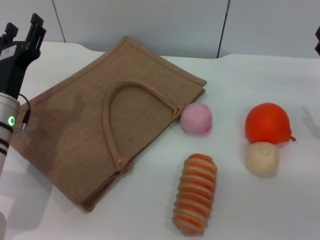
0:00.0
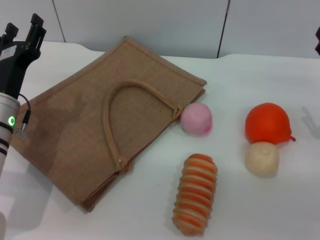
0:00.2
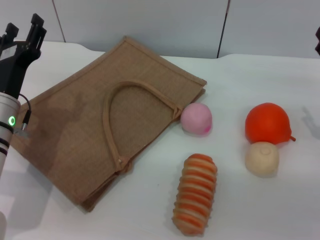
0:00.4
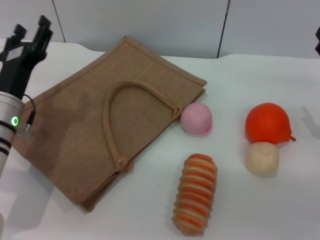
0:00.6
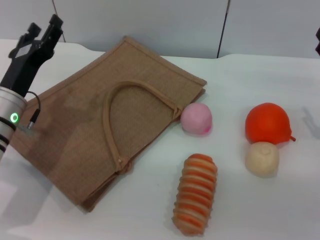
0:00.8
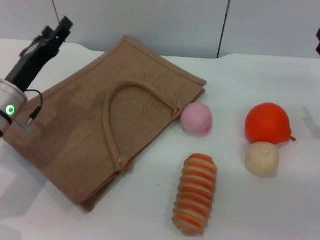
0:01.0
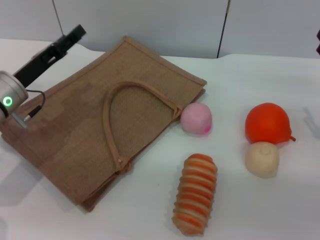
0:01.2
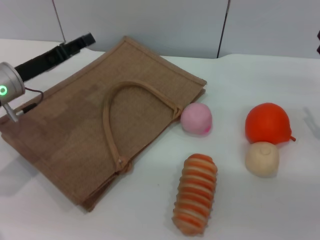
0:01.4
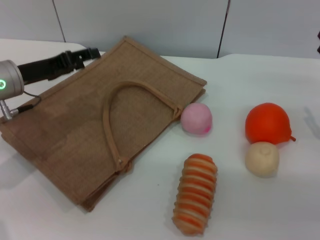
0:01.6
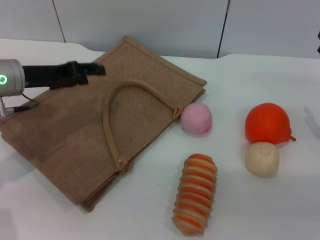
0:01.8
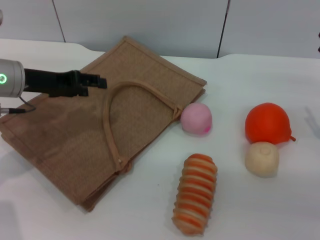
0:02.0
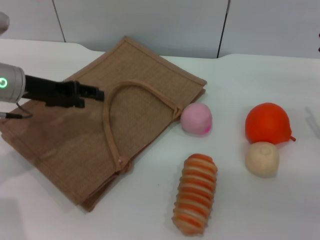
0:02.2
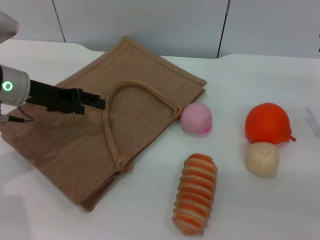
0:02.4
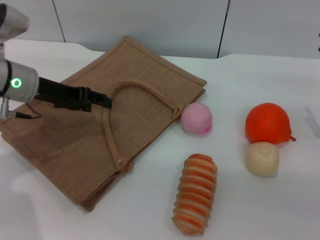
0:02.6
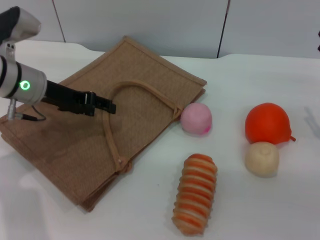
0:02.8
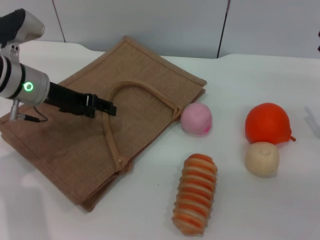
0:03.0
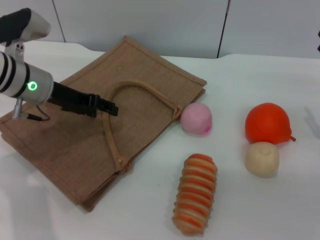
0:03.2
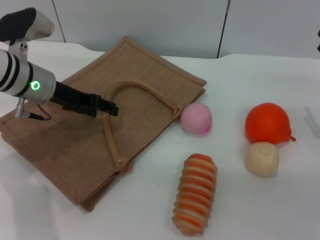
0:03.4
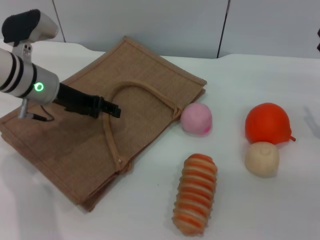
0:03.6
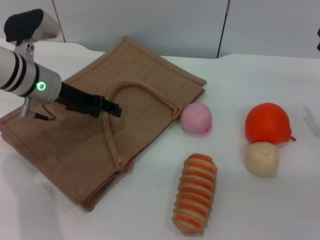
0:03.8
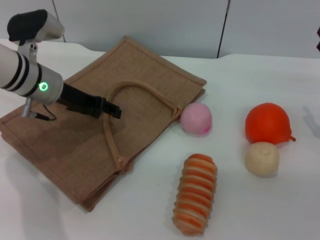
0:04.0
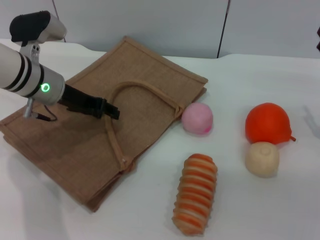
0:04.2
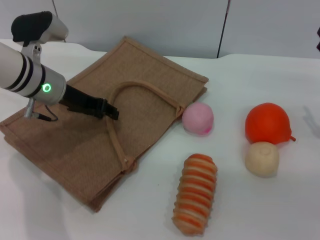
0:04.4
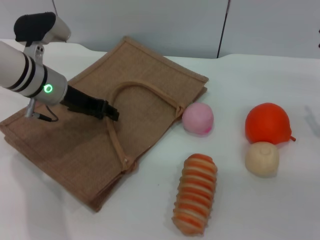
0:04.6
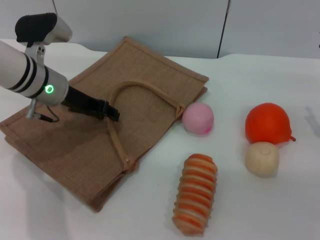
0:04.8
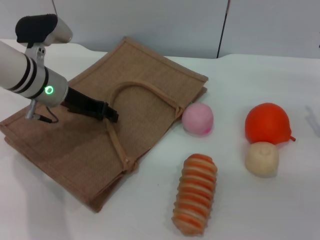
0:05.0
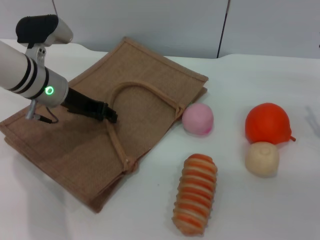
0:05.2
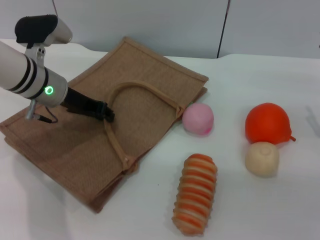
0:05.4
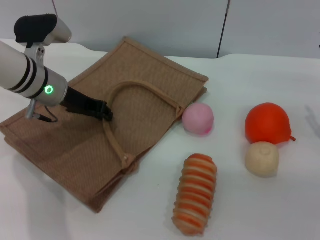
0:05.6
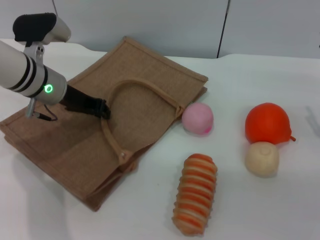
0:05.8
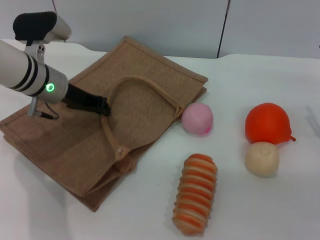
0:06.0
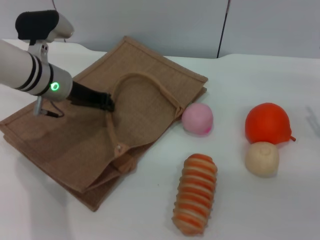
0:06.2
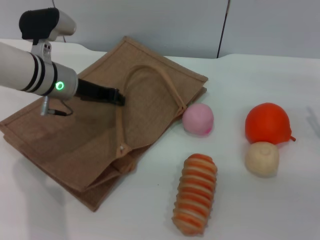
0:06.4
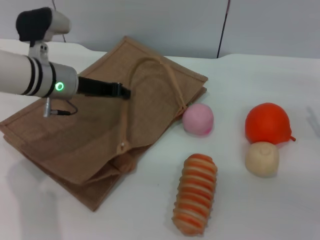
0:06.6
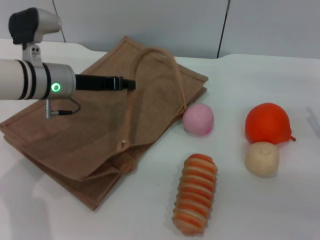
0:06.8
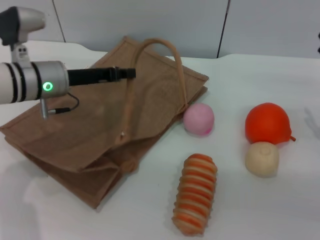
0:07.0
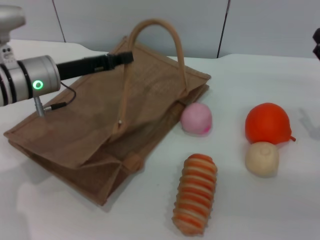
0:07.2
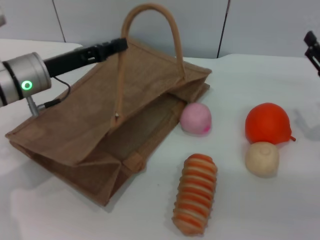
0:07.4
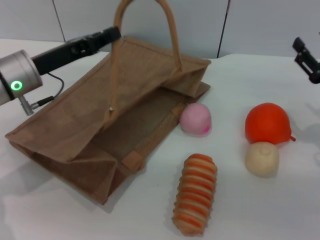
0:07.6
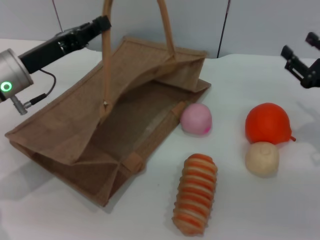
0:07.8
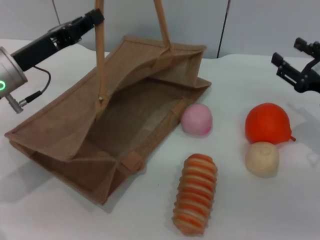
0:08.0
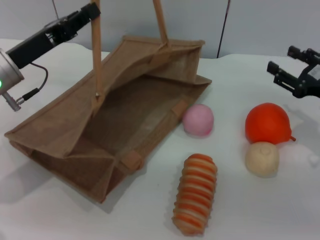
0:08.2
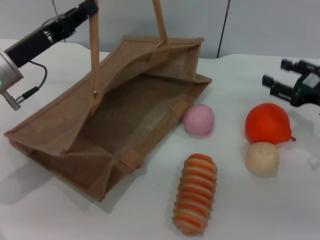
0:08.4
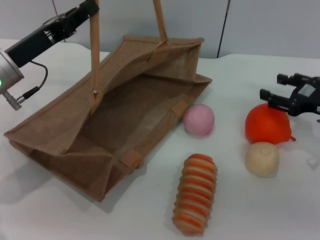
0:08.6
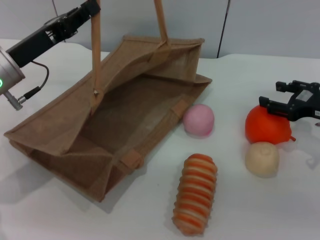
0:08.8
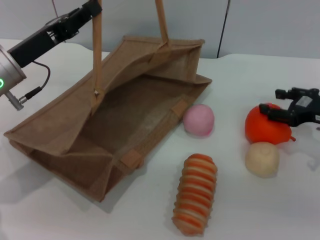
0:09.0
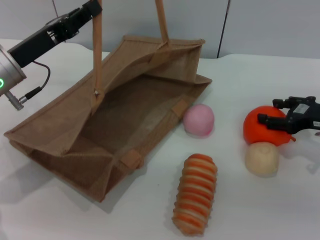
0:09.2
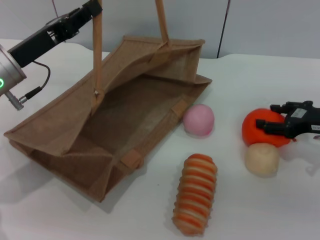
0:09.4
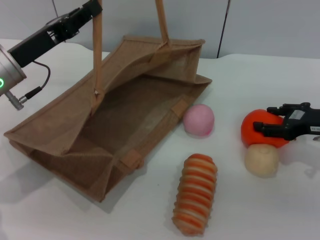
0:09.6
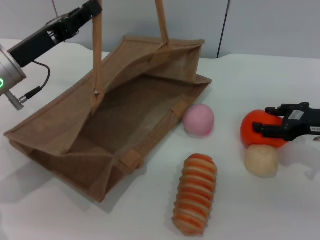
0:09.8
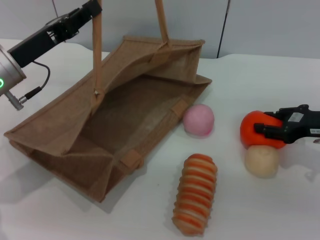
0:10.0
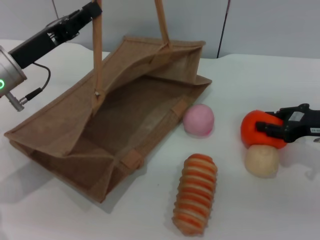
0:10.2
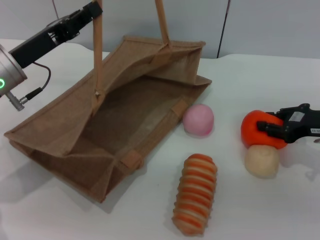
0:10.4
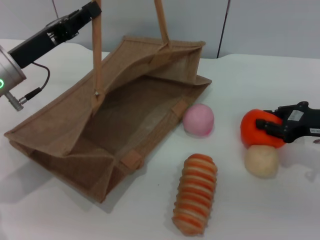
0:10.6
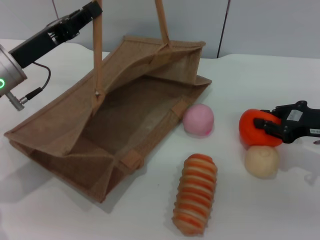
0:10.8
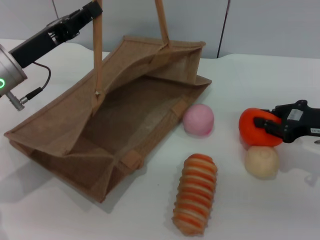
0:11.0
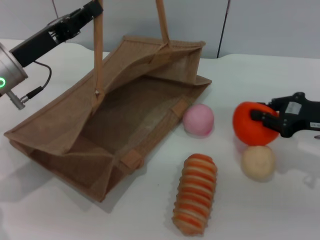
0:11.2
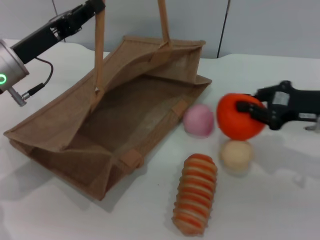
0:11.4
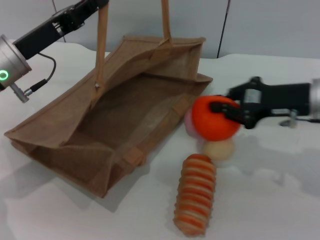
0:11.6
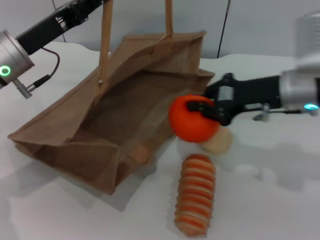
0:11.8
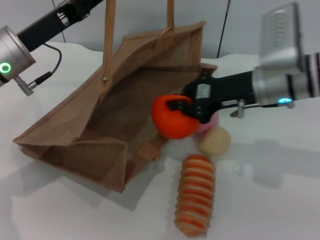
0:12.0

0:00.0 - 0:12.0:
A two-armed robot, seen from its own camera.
Task of the whole recording: pick up the orange and peach from the table and place it in the brown handbag.
Step, 0:00.0 - 0:07.2: Lift the woven bag with the left gripper to open it.
Step, 0:07.4 - 0:11.2: Pick up the orange with the right gripper.
0:00.0 - 0:01.6: The left gripper goes approximately 5 cm forward.
0:03.0 - 0:04.4: The grippers make only small movements.
0:04.4 - 0:06.0: The left gripper closes up.
0:06.0 - 0:07.6: The left gripper is displaced backward by about 5 cm.
0:09.0 - 0:10.4: The right gripper closes its fingers.
0:10.4 - 0:12.0: The right gripper travels to the left by approximately 15 cm, and closes up.

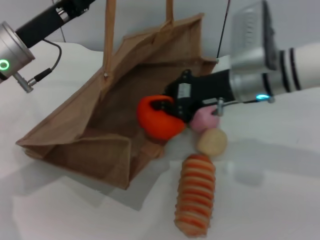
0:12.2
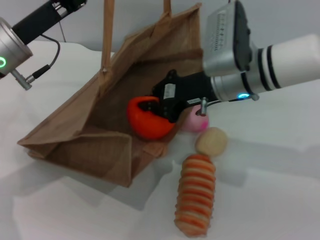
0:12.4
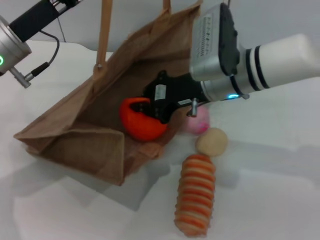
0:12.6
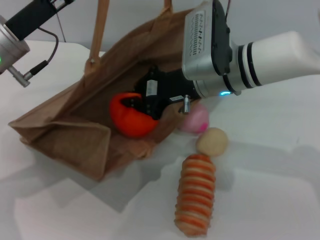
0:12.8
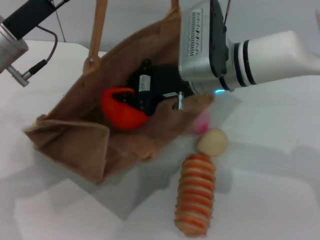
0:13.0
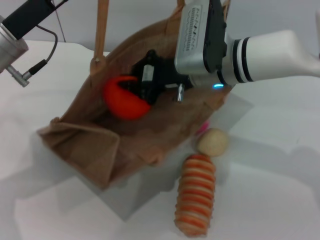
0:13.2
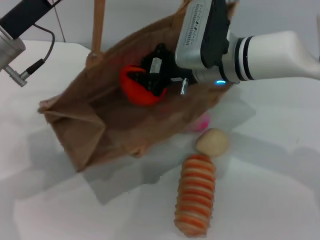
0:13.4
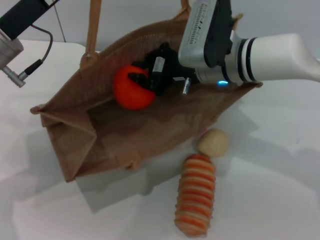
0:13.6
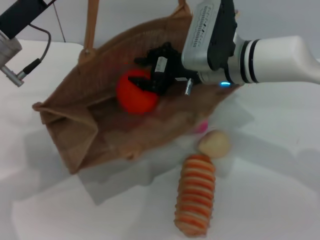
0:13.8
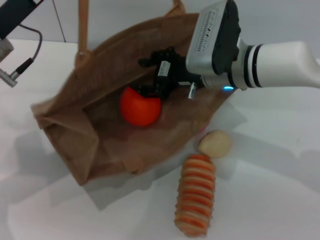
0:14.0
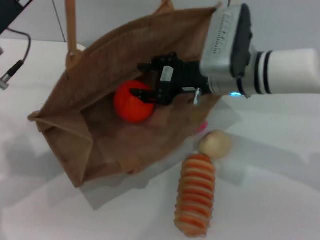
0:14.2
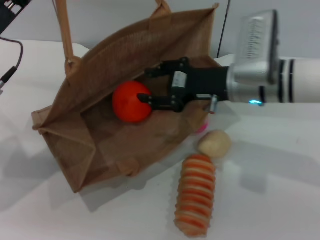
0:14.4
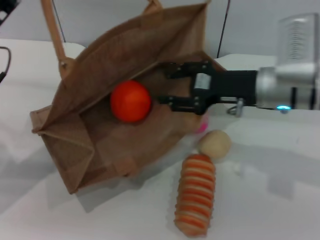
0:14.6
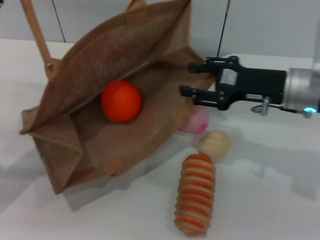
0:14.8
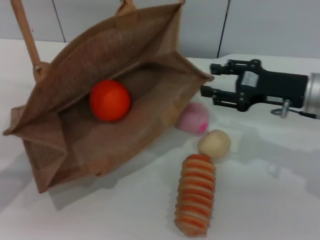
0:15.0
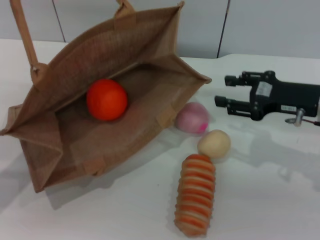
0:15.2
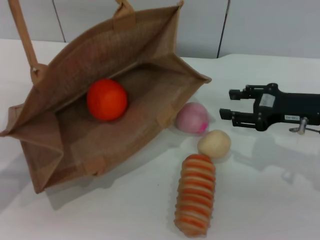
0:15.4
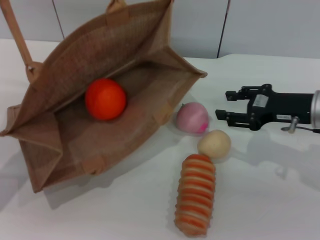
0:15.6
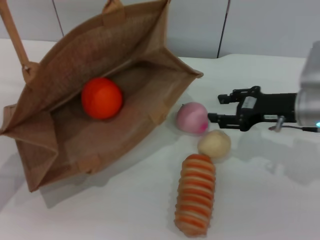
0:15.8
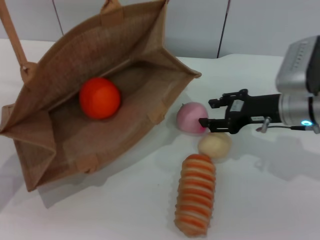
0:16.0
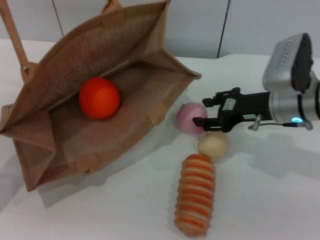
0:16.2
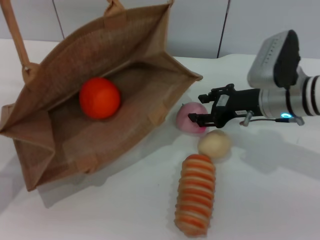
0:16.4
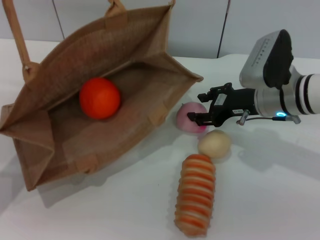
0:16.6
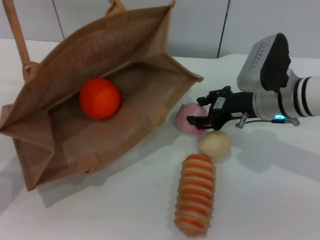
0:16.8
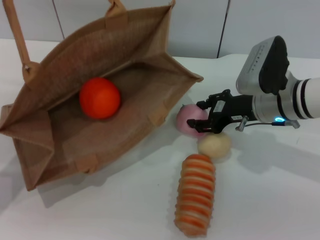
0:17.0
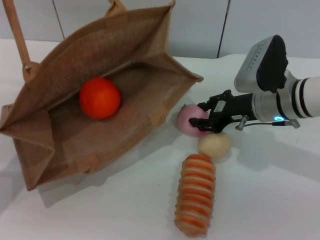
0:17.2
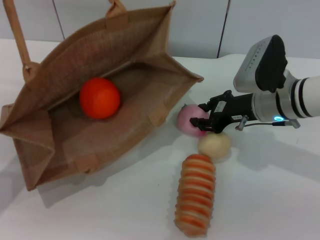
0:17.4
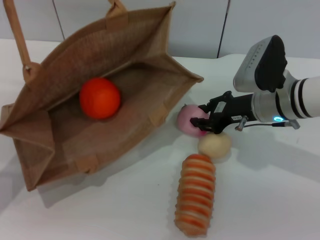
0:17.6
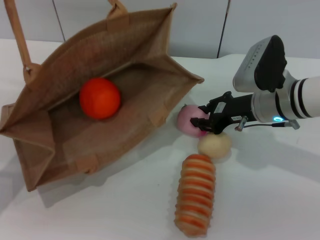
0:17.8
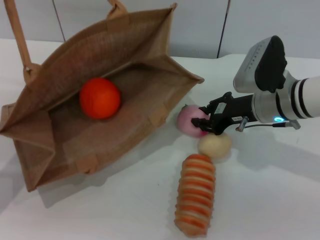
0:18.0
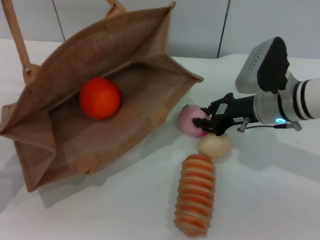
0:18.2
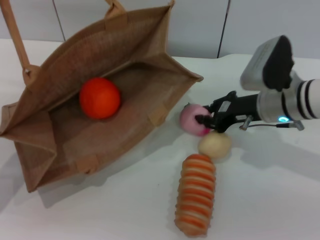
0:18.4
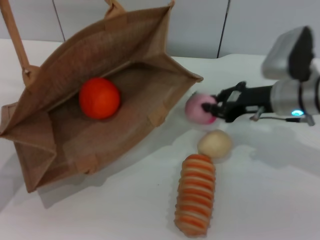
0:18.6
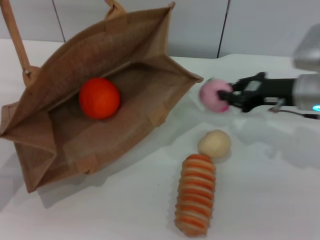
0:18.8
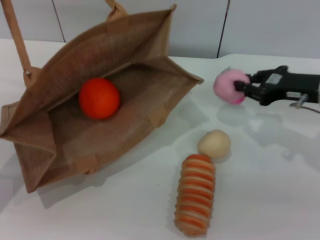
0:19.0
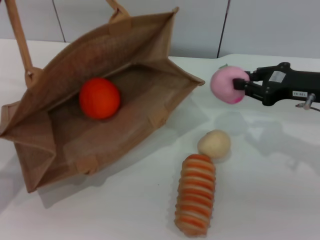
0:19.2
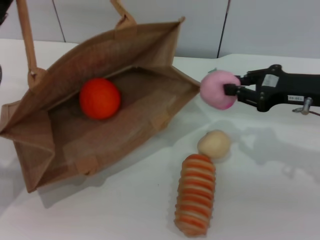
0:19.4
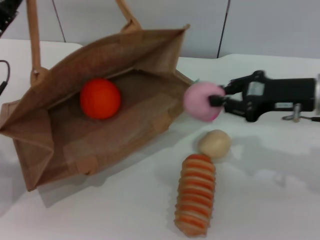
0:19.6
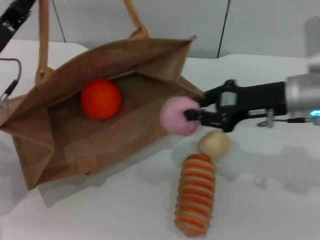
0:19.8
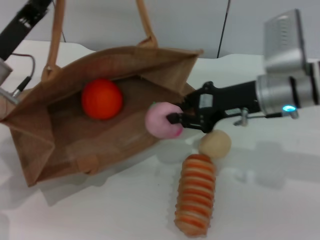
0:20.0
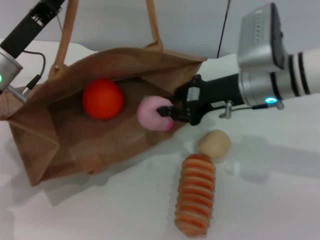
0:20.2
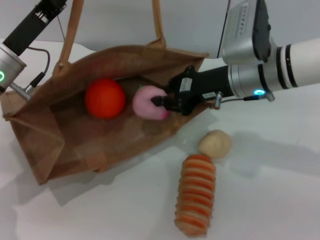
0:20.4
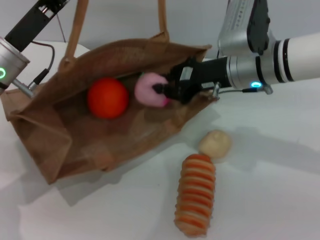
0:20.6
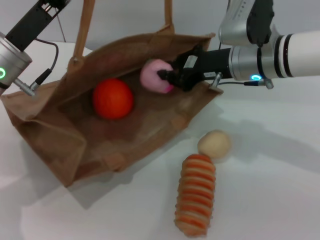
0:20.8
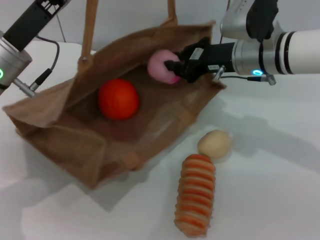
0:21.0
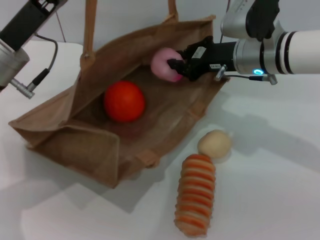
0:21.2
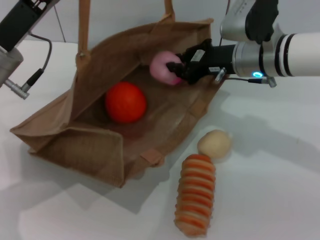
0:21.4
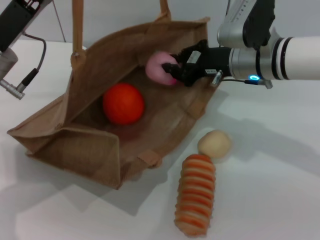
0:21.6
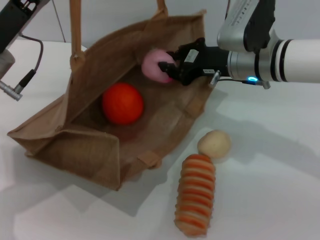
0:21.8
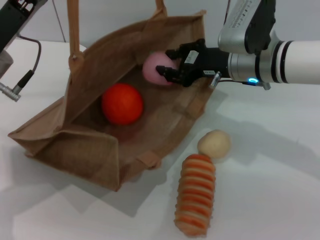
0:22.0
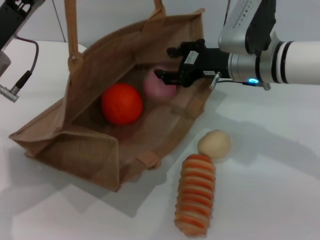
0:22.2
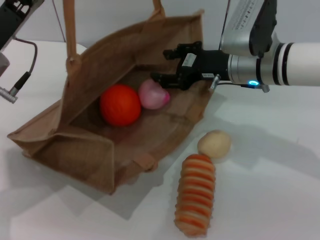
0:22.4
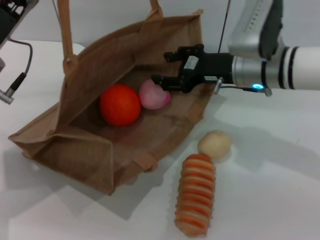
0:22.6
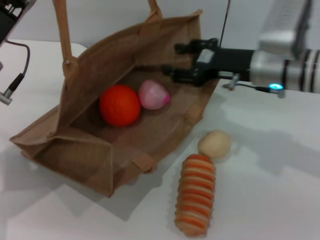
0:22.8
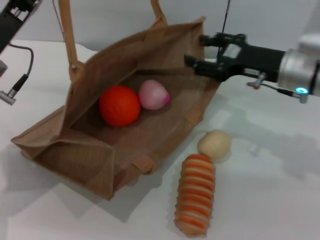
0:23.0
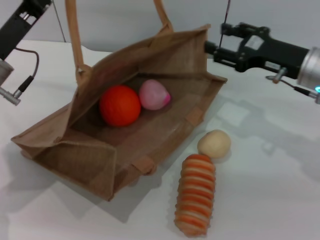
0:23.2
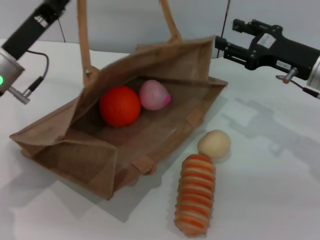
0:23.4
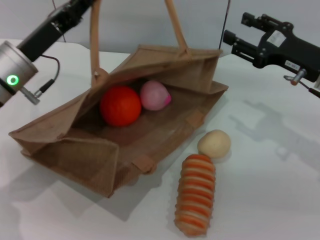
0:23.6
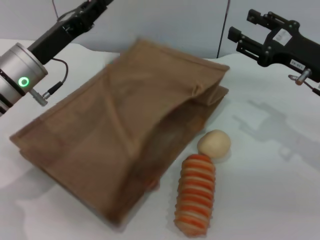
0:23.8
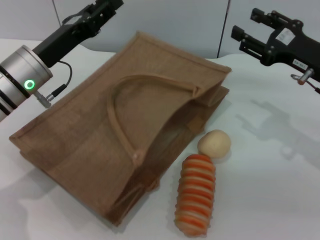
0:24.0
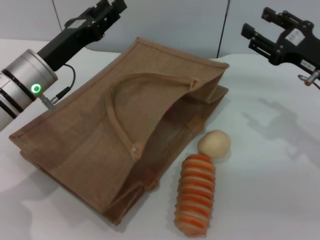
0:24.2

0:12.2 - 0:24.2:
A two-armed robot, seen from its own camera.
Task of the whole recording: pick up the orange and peach from the table and place it in the brown handbag.
Step, 0:12.2 - 0:14.4: Place the orange into the woven bag with the right gripper.
Step, 0:14.6 - 0:18.6: Pick up the peach with the right gripper.
Step, 0:18.8 - 0:22.6: Place the peach into the woven bag with the right gripper.
Step, 0:22.8 - 0:24.0: Lower the woven bag with the left gripper to close it.
0:13.8 - 0:15.2: The left gripper goes roughly 5 cm to the left. The right gripper travels to the right by roughly 15 cm, and opens its fingers.
0:15.2 - 0:16.6: The right gripper is displaced to the left by about 10 cm.
0:16.6 - 0:18.2: The right gripper closes up.
0:18.2 - 0:19.8: The right gripper is displaced upward by some 5 cm, and goes to the right and returns, roughly 10 cm each way.
0:19.8 - 0:21.2: The right gripper travels to the left and forward by approximately 10 cm. Meanwhile the left gripper ends up roughly 5 cm from where it was.
0:21.2 - 0:22.6: The right gripper opens up.
0:22.6 - 0:24.2: The right gripper travels to the right by roughly 15 cm. Meanwhile the left gripper shifts by roughly 5 cm, and opens its fingers.
